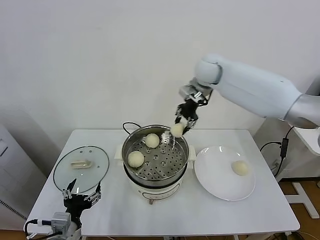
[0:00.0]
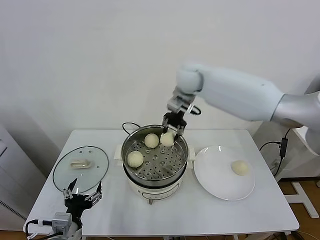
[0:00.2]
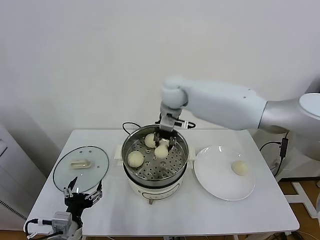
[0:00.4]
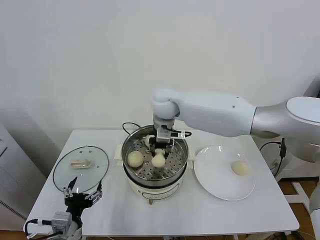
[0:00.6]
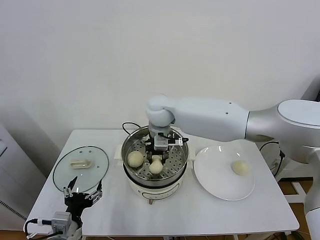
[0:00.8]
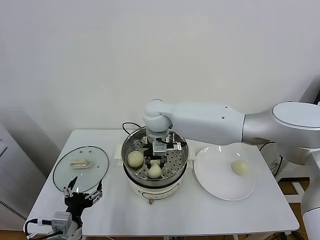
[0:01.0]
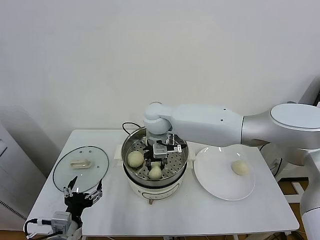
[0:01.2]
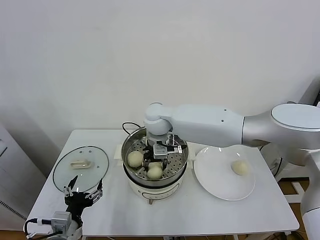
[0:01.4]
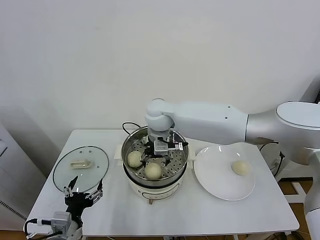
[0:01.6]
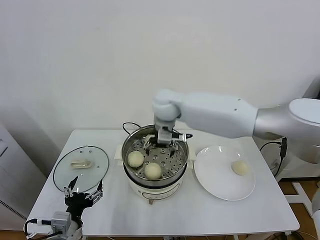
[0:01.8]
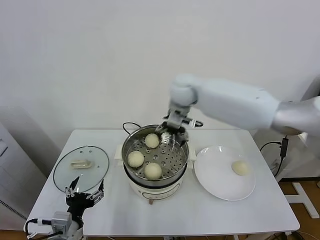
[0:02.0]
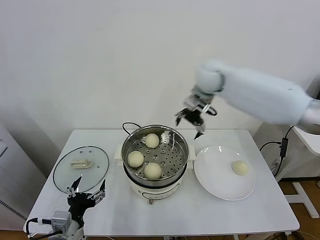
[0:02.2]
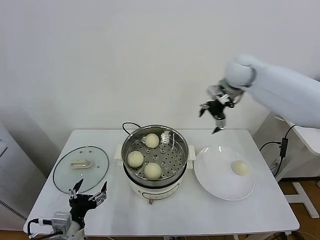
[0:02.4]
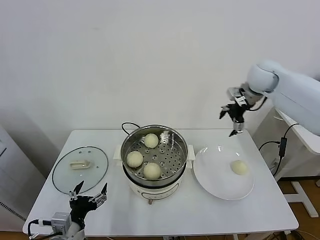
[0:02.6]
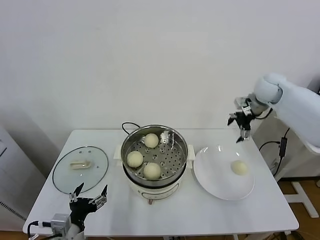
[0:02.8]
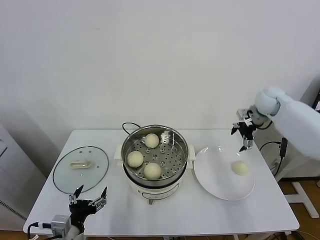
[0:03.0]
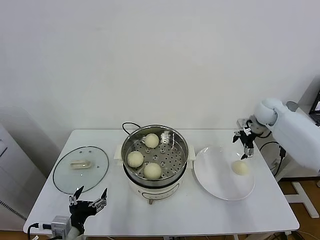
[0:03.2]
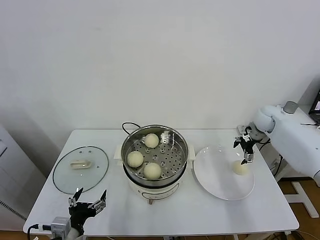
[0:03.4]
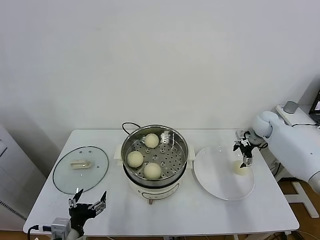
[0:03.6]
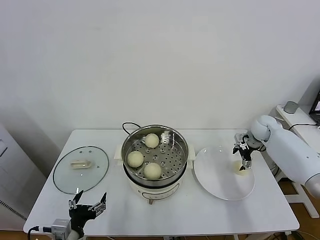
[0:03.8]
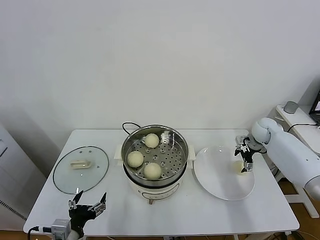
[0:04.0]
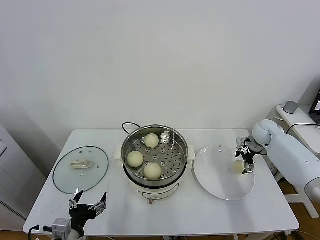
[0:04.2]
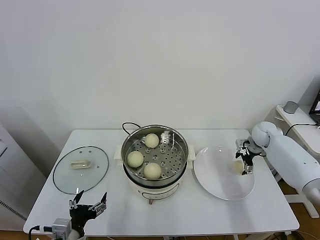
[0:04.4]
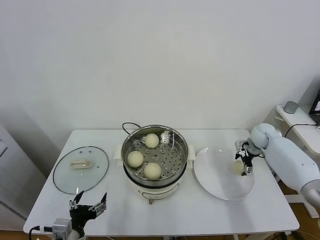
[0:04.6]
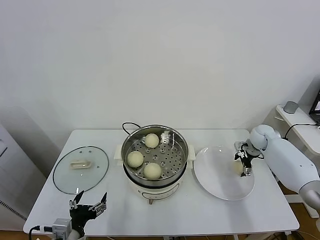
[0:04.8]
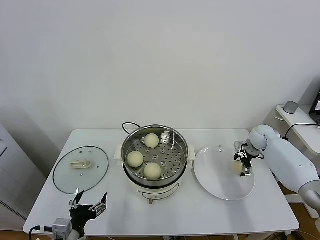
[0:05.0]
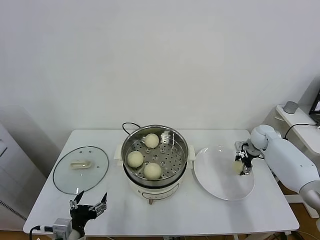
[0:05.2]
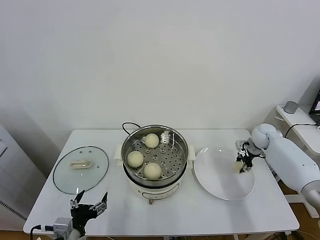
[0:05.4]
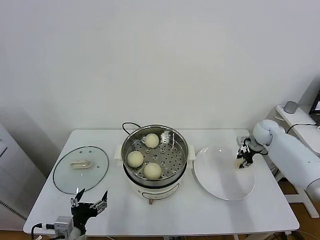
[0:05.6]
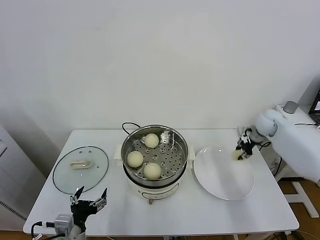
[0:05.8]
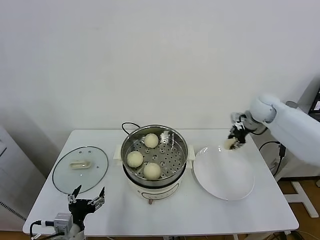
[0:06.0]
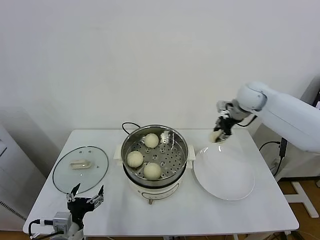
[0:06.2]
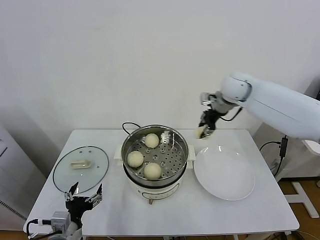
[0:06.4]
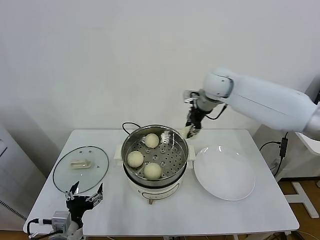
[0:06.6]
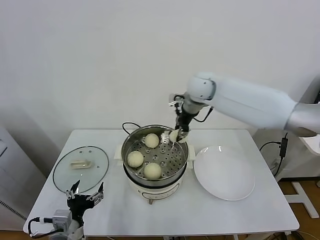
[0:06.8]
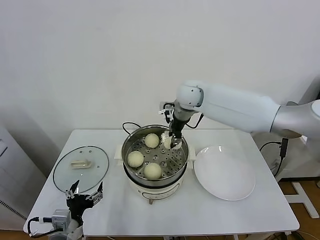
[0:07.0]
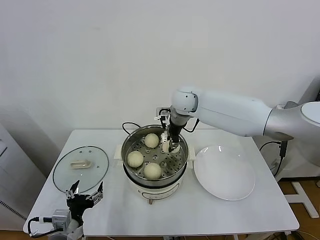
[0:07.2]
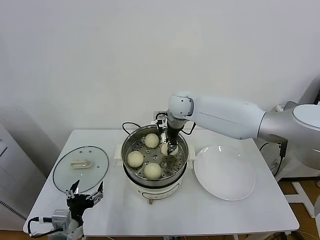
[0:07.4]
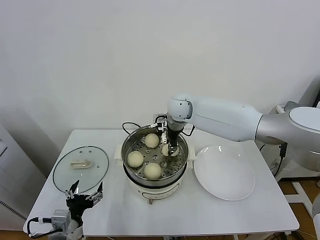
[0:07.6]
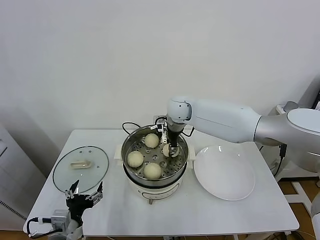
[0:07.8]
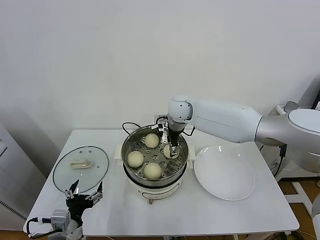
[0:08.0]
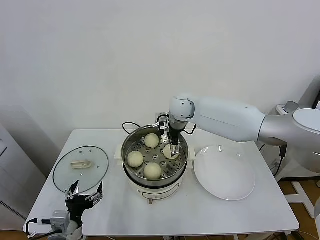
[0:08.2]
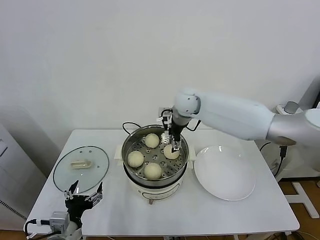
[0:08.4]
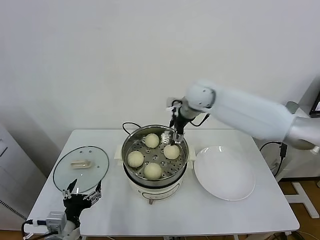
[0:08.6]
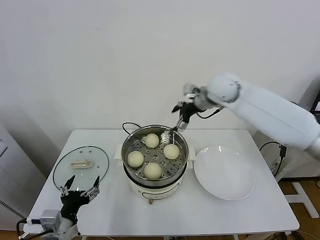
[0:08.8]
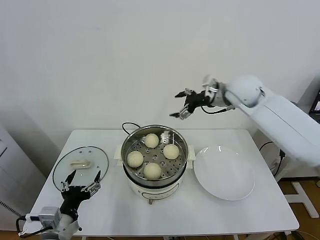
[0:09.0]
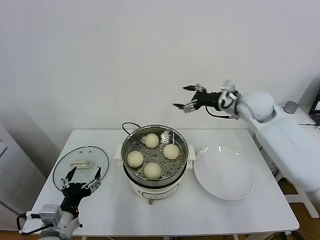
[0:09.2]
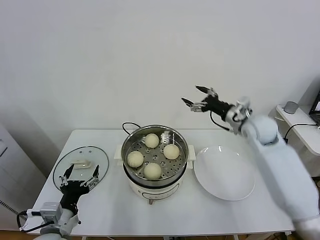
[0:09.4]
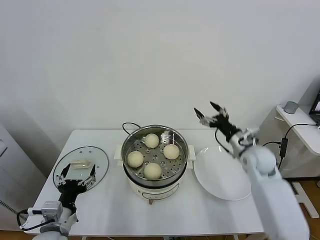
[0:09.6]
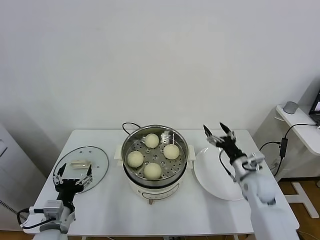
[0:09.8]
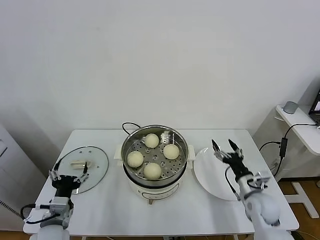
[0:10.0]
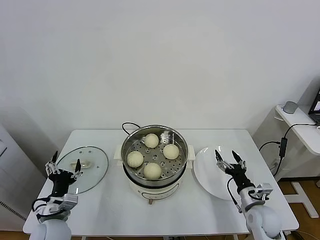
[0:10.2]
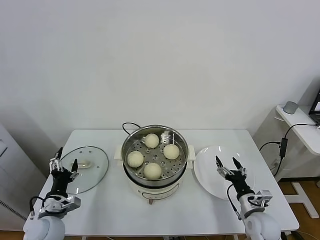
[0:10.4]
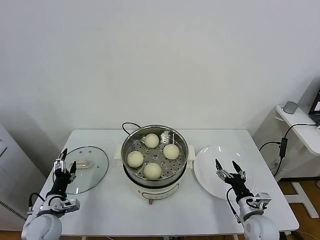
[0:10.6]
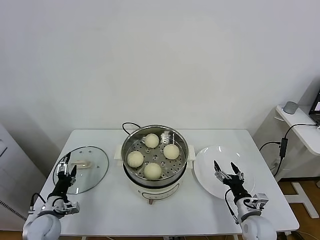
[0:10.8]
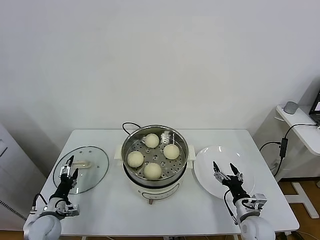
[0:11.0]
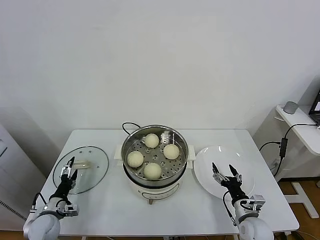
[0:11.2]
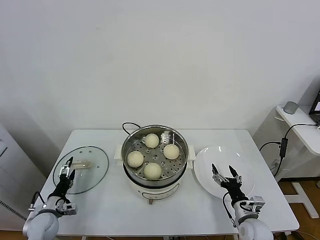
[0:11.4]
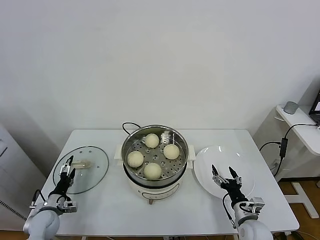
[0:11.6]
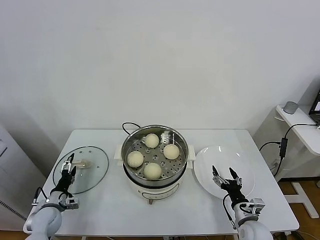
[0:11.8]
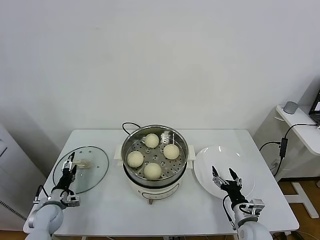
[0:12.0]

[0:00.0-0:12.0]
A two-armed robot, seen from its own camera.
Task of the whole recording: take steamed baozi put them in steamer.
Step, 0:00.0 to 0:01.6: Place the baozi on the steamer with right gripper.
Step, 0:01.8 to 0:05.4: Grasp the baozi in the plate with right gripper.
Step, 0:05.6 to 0:08.2: Place the baozi on the steamer with right gripper.
0:00.0 to 0:01.6: The right gripper is displaced to the left, downward and backward by some 20 cm, and opens.
0:01.6 to 0:03.0: The right gripper is displaced to the right by roughly 40 cm.
0:03.0 to 0:04.4: The right gripper heads downward, covering some 15 cm.
0:04.4 to 0:06.0: The right gripper travels upward and to the left by approximately 15 cm, and closes.
0:06.0 to 0:07.6: The right gripper shifts roughly 30 cm to the left.
0:07.6 to 0:09.0: The right gripper moves to the right and upward, roughly 20 cm, and opens up.
0:09.0 to 0:10.4: The left gripper moves forward, downward and to the left, approximately 10 cm. Meanwhile the right gripper is displaced downward and backward by roughly 40 cm.
0:10.4 to 0:12.0: The left gripper moves downward, to the left and forward, approximately 15 cm.

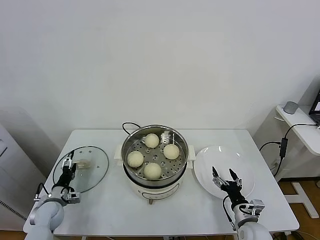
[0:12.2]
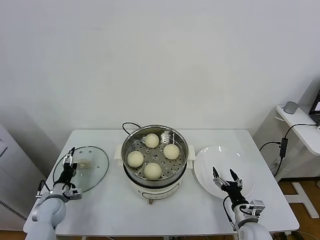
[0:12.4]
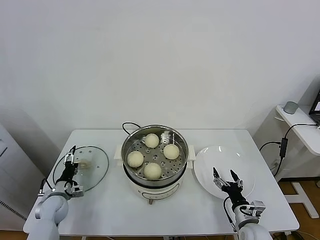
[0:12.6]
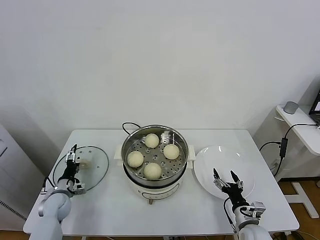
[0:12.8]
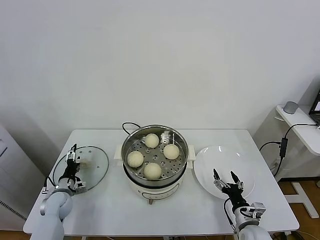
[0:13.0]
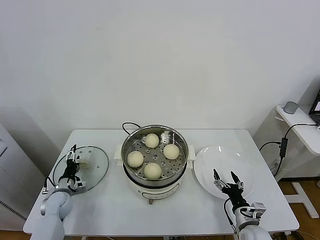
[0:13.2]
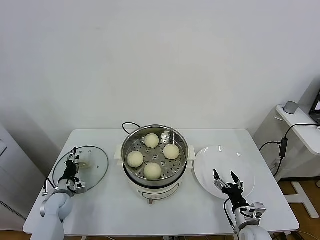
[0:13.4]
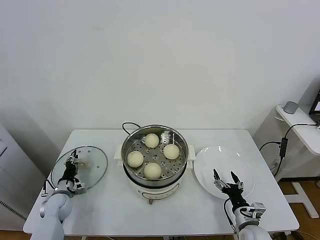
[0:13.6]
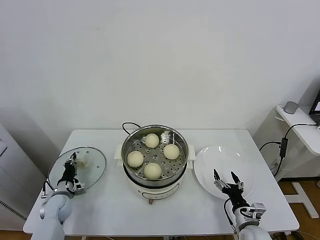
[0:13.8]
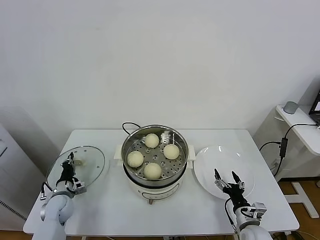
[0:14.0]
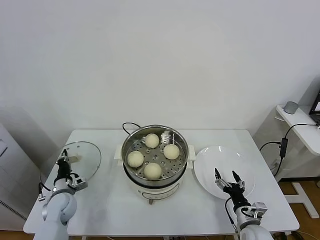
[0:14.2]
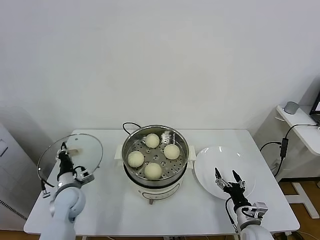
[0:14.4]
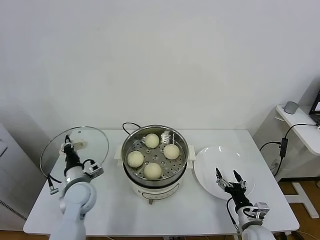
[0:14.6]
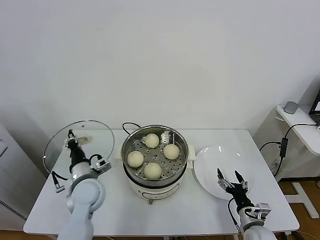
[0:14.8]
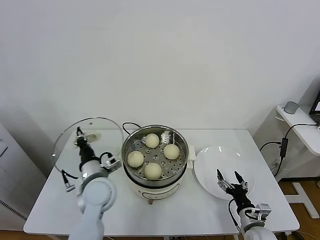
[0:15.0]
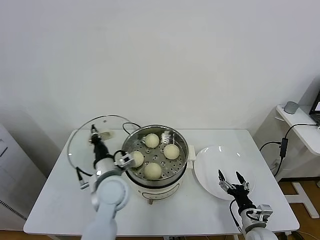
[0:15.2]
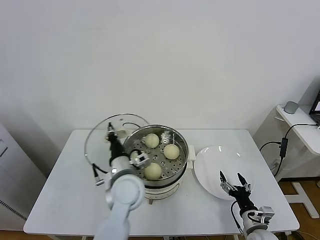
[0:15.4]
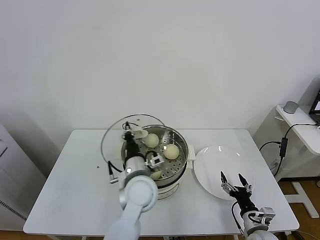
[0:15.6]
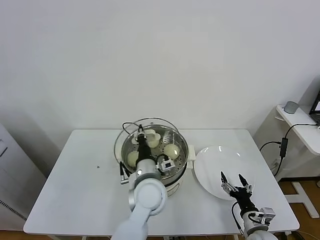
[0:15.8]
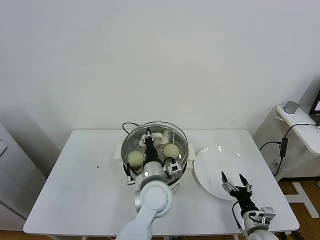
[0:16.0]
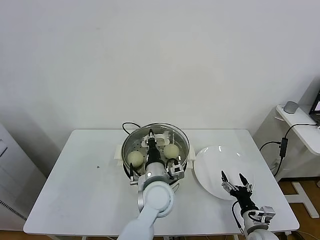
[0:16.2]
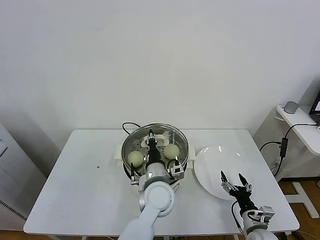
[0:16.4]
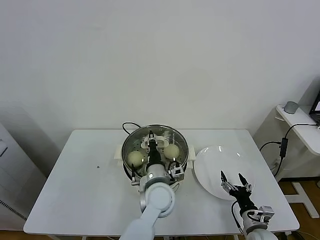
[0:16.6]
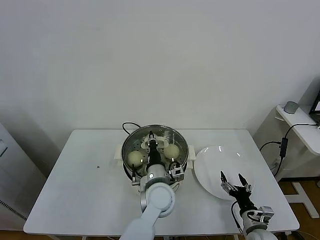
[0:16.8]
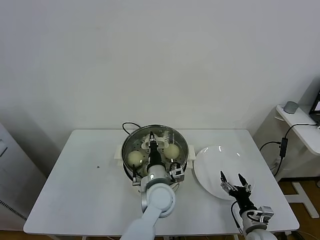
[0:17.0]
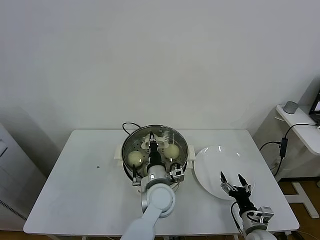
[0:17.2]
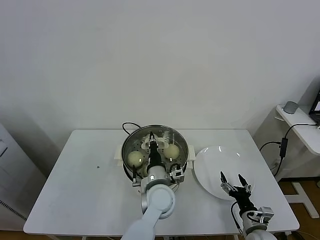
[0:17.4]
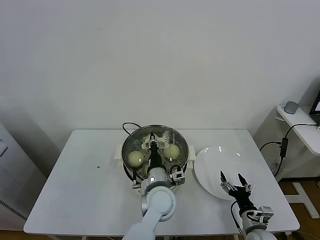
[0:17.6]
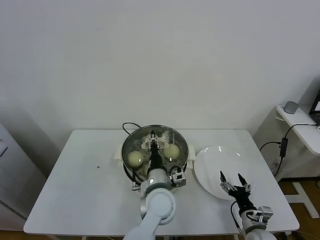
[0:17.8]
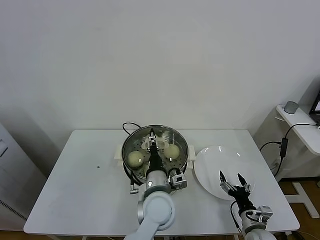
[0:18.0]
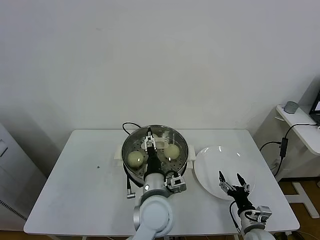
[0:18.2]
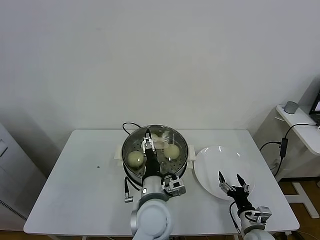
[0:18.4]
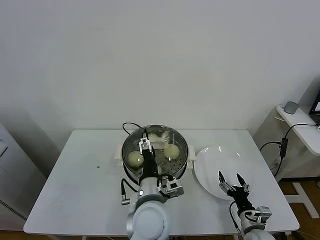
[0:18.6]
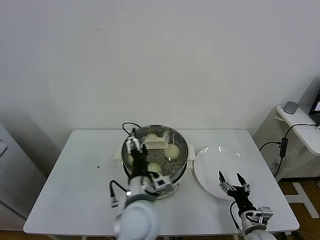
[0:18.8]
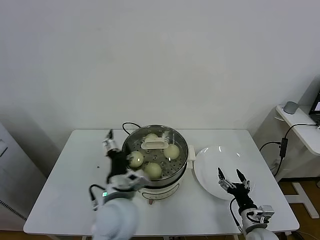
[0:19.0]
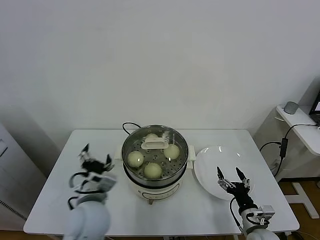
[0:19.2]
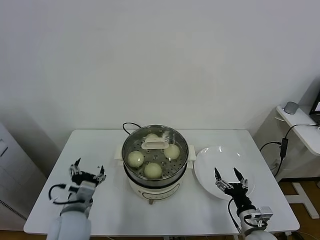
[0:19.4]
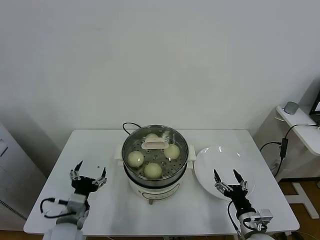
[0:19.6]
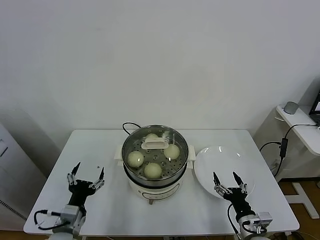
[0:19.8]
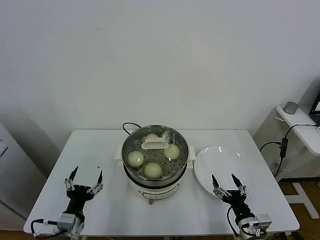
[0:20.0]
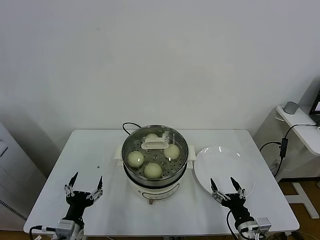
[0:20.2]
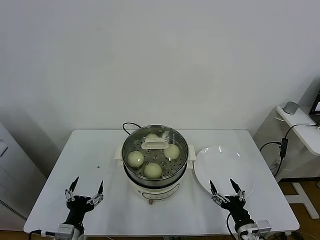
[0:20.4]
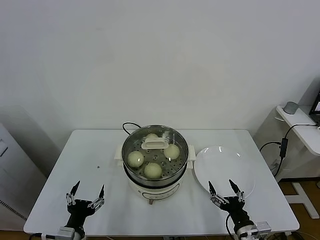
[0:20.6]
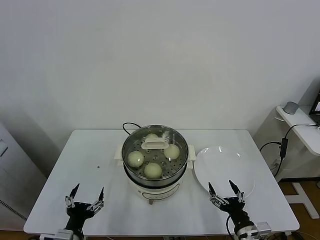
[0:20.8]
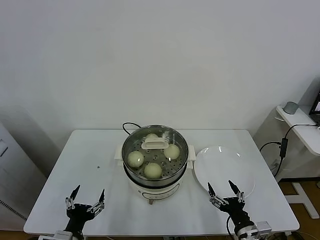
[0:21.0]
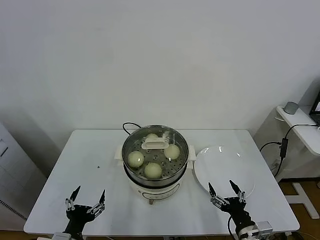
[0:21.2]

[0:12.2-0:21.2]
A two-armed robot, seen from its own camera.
Task of the whole recording: take steamed baozi put them in steamer.
Step, 0:14.2 to 0:18.2: Place the pot lid on the steamer with left gripper.
0:12.2 to 0:13.8: The left gripper closes its fingers.
0:13.8 to 0:15.2: The left gripper travels to the right and upward by some 35 cm.
0:15.2 to 0:16.6: The left gripper travels to the right by roughly 15 cm.
0:16.6 to 0:18.2: The left gripper moves roughly 5 cm, and opens.
0:18.2 to 0:19.8: The left gripper heads to the left, covering about 25 cm. Meanwhile the right gripper ends up approximately 5 cm from where it was.
0:19.8 to 0:21.2: The right gripper shifts by approximately 5 cm. Meanwhile the left gripper shifts roughly 10 cm backward.
